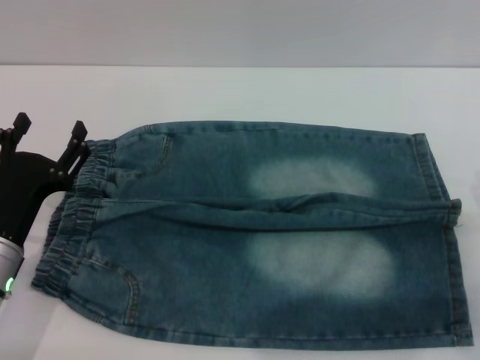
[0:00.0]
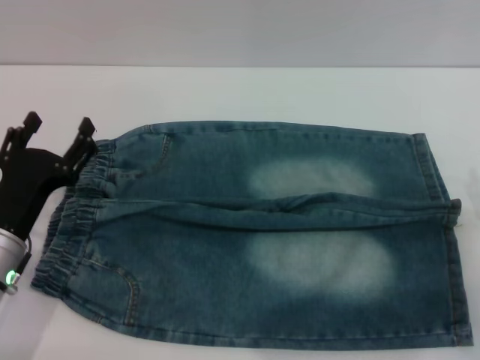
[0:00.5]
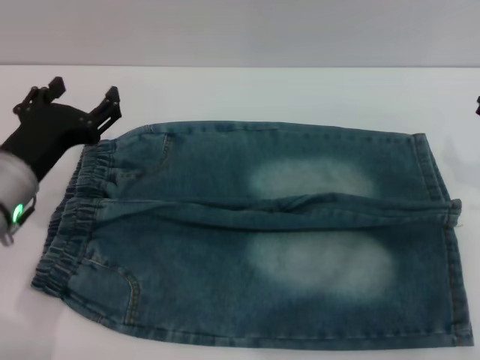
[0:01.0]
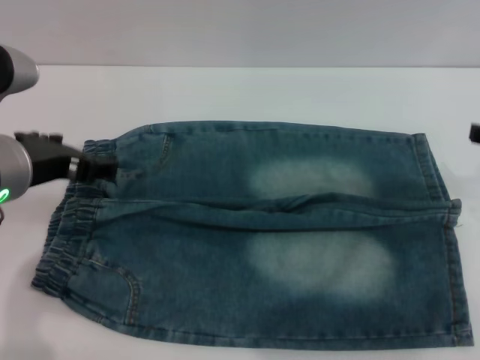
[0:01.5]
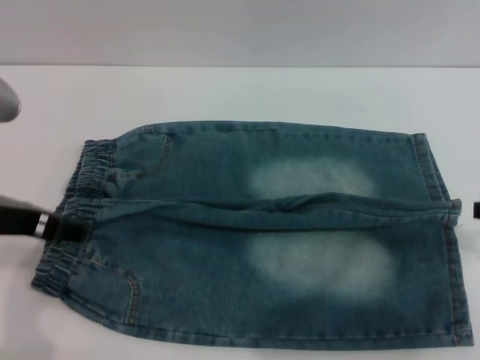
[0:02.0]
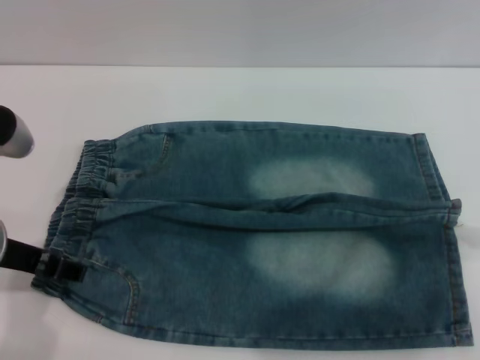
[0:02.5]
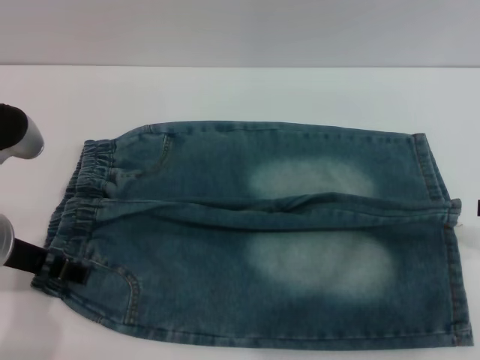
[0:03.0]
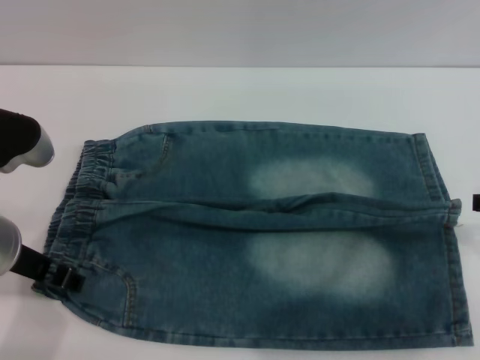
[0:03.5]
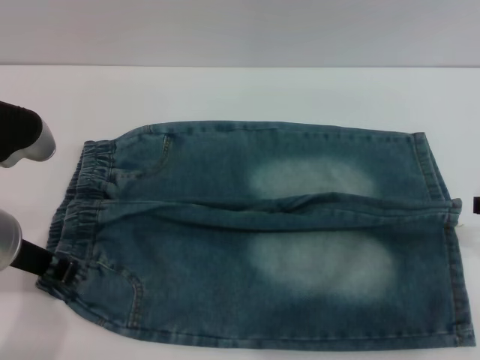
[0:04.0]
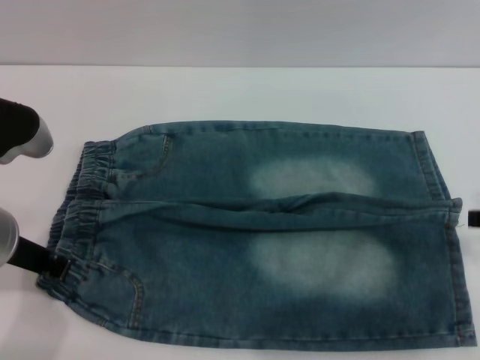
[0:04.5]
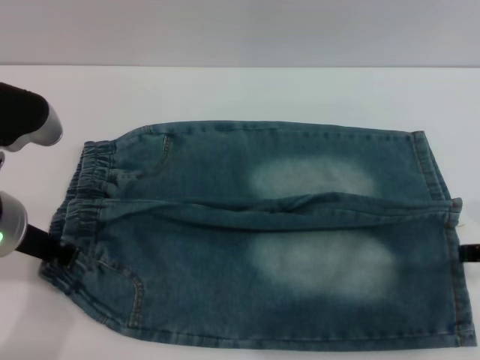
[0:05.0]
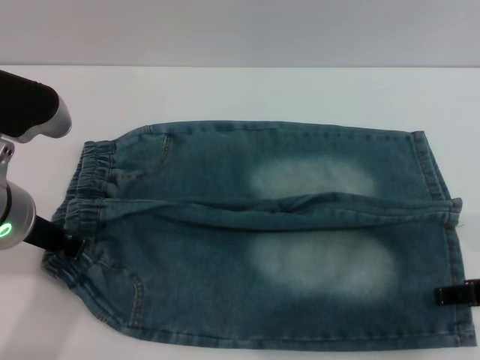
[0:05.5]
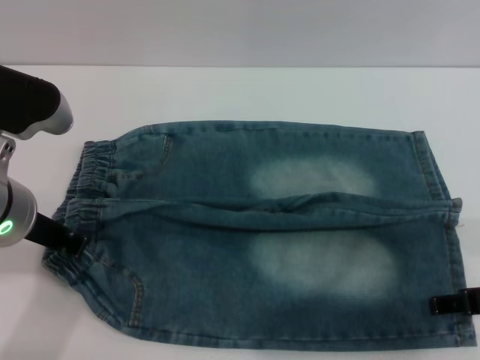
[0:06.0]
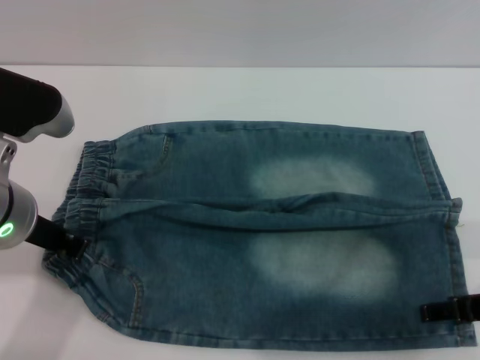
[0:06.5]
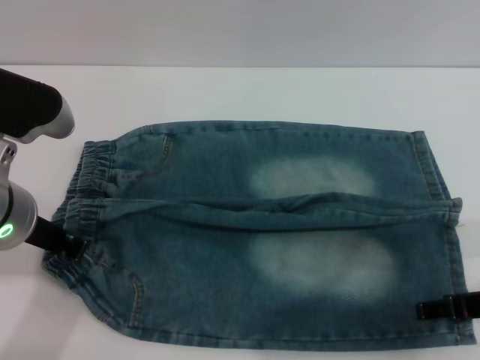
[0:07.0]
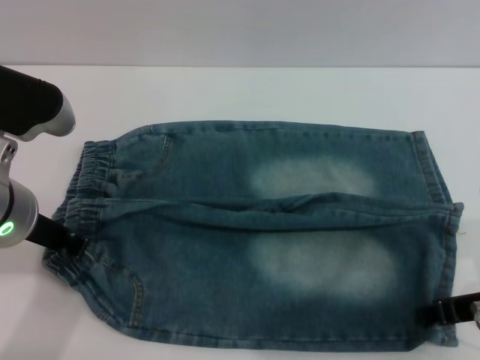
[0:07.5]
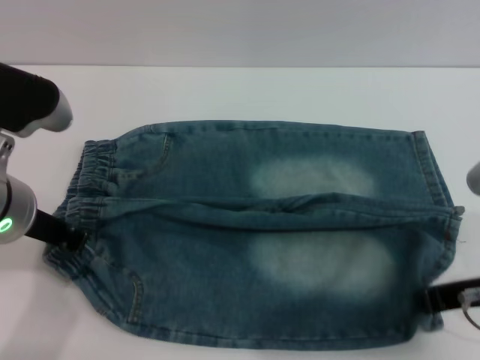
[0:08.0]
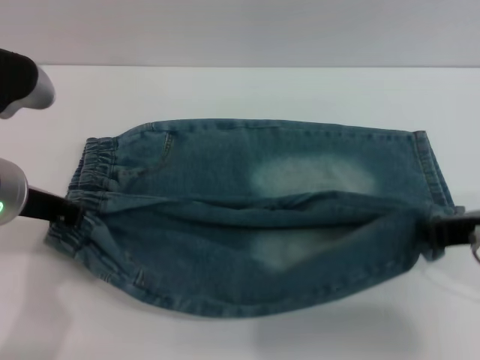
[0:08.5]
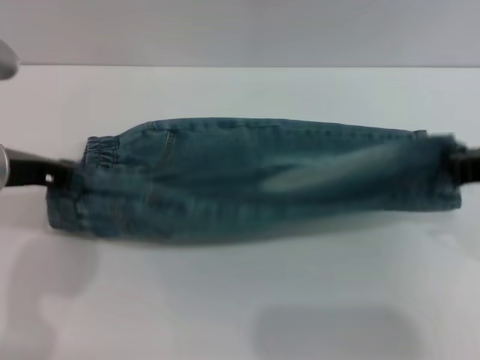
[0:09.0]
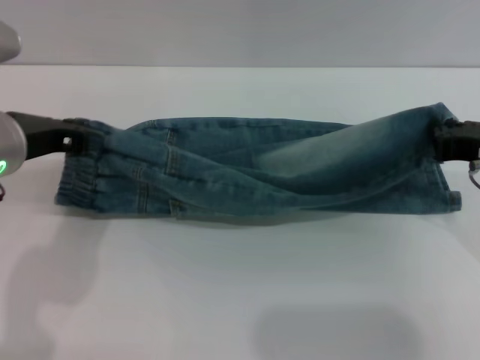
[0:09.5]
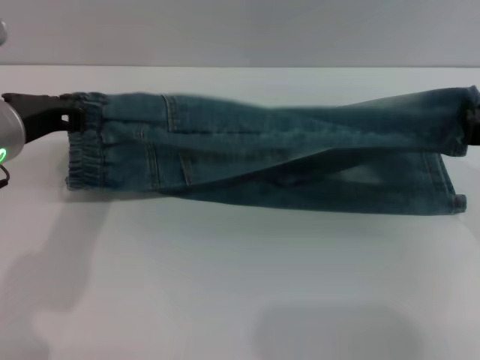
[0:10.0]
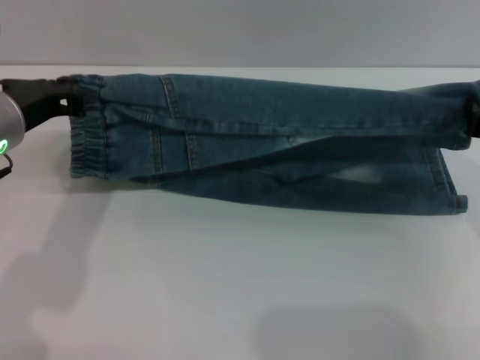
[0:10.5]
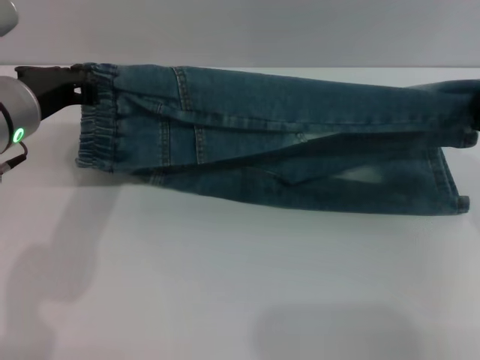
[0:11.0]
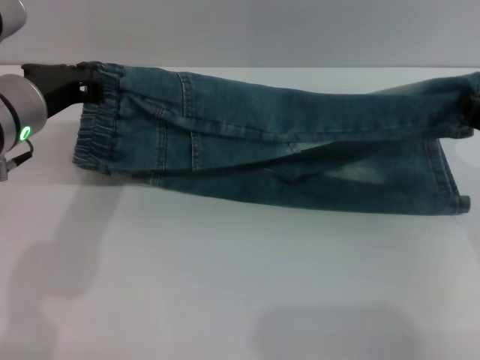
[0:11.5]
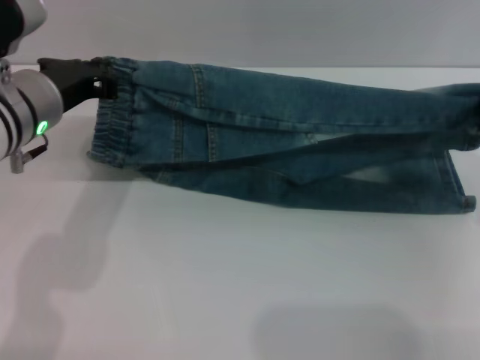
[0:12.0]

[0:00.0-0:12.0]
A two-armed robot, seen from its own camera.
0:00.0 to 0:02.0: Both grippers move upward, about 15 cm.
0:02.0 to 0:04.0: The left gripper closes its fingers.
0:04.0 to 0:06.0: The right gripper shifts by about 5 cm, while the left gripper closes its fingers.
0:06.0 to 0:08.0: The right gripper closes up.
0:08.0 to 0:10.0: The right gripper ends up approximately 5 cm from where it was.
0:10.0 to 0:12.0: The grippers move only a little.

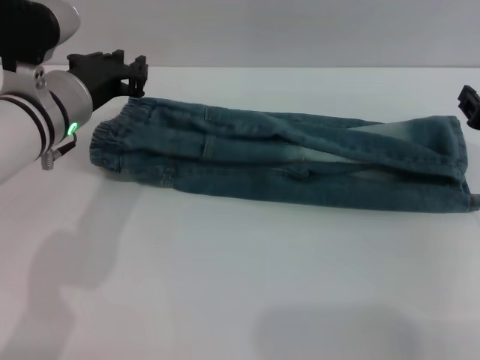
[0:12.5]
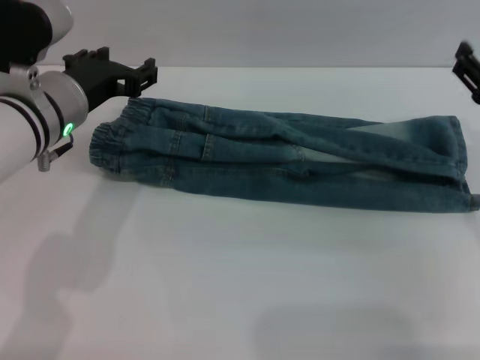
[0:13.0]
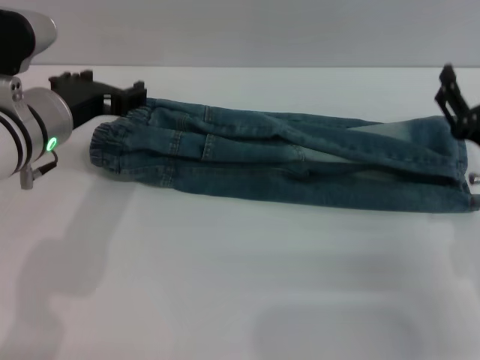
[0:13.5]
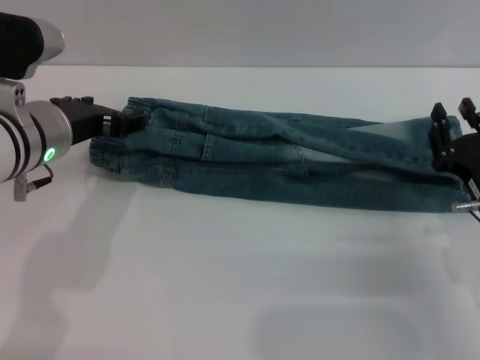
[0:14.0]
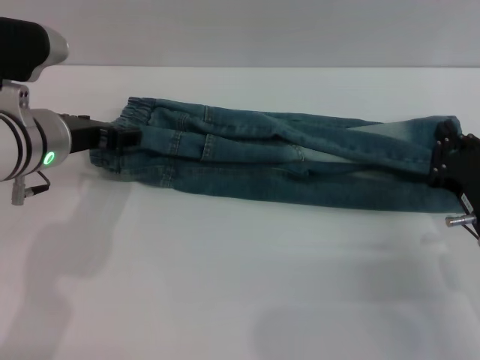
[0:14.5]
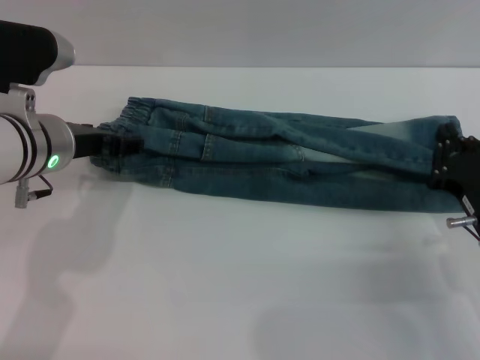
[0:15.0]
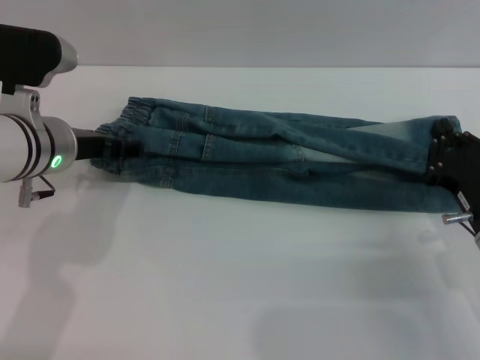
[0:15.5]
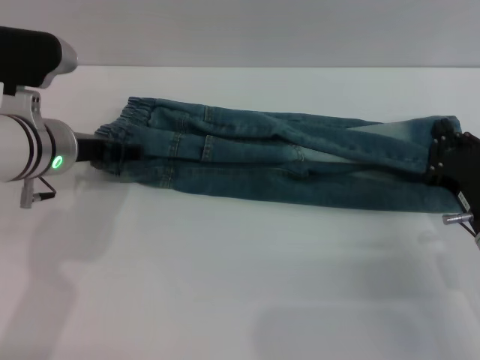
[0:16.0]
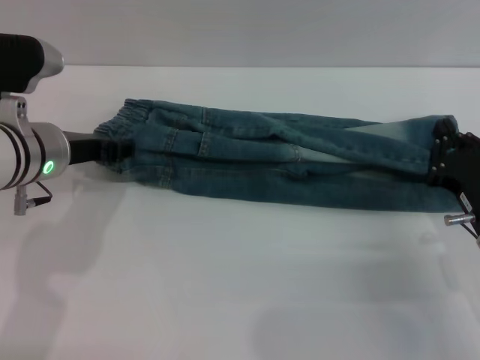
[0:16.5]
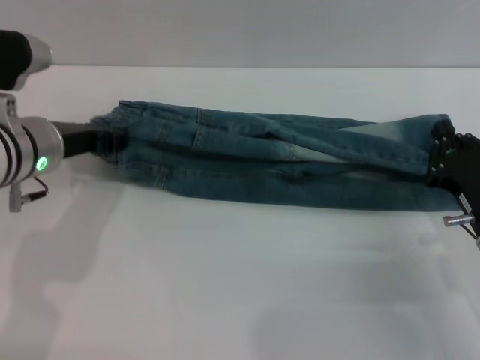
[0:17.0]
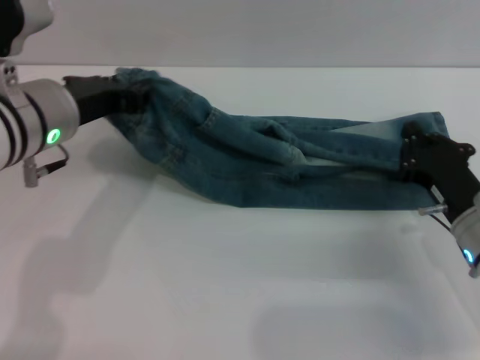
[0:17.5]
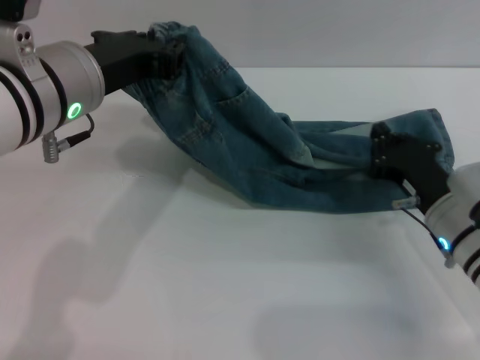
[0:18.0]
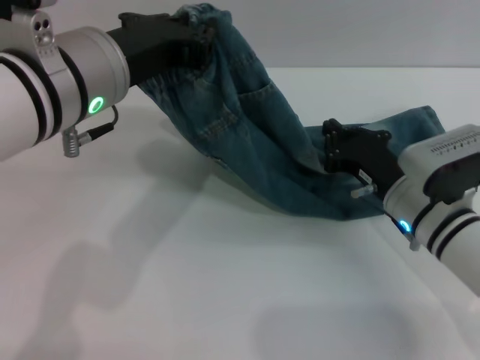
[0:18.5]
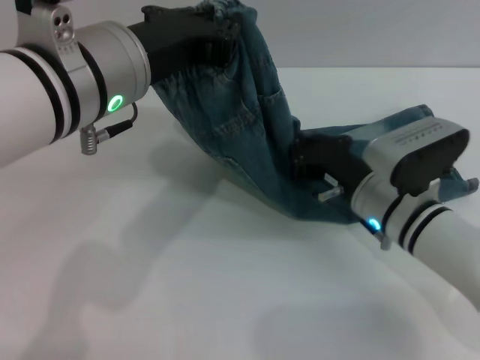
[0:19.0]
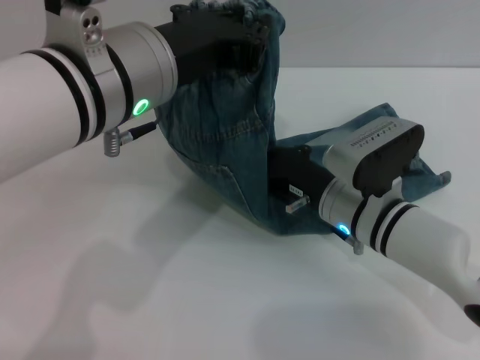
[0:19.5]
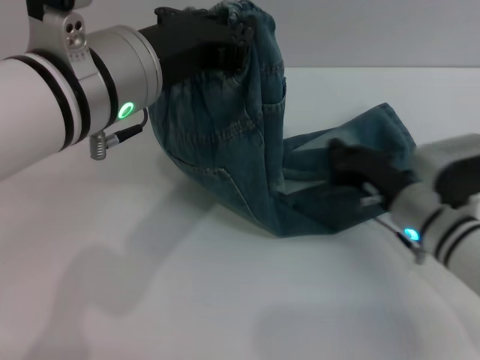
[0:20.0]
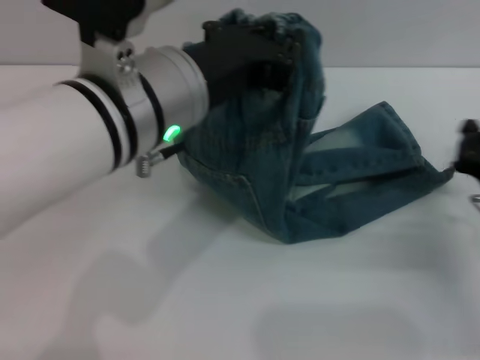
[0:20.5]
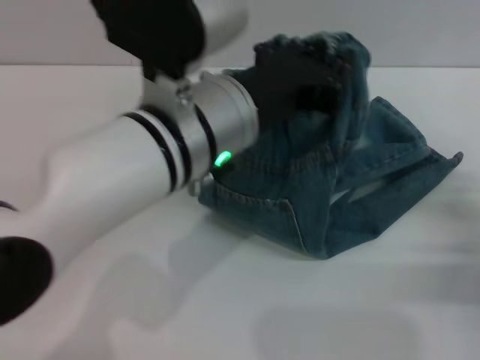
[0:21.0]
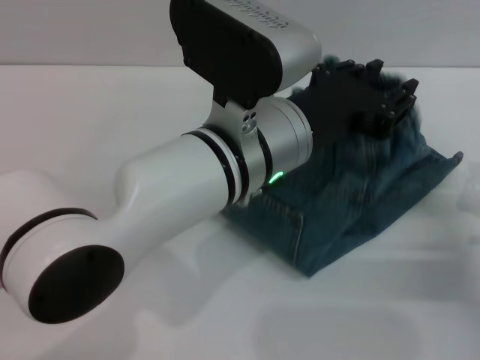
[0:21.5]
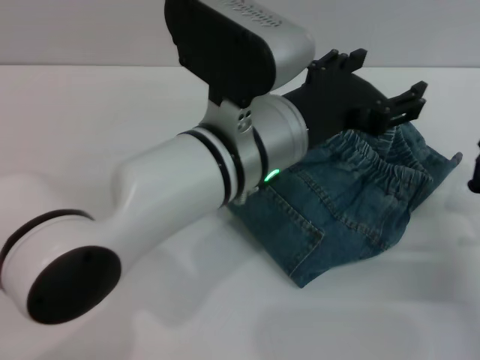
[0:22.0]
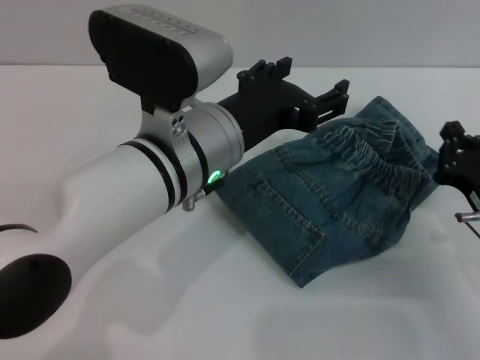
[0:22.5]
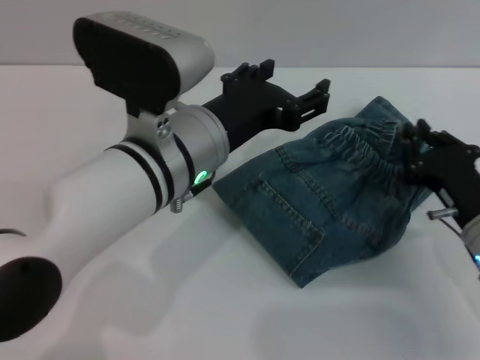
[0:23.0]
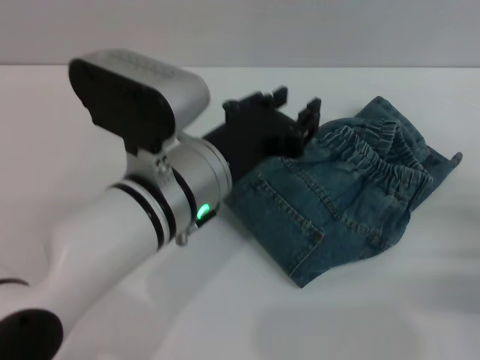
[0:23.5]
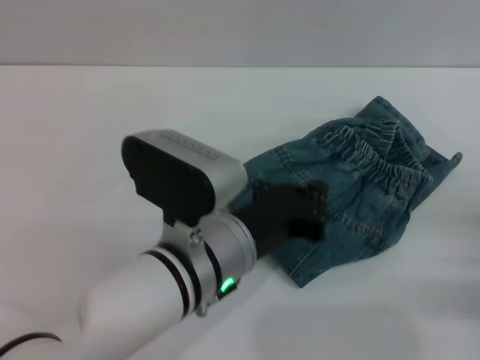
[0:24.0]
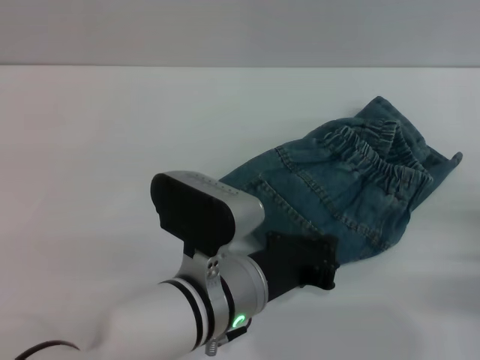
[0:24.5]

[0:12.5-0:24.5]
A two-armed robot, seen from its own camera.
Step, 0:13.5 to 0:22.0: Fold the pants from left to right with the left gripper.
0:12.5 to 0:14.5: The right gripper heads downward, covering some 10 cm, and opens and closes again; the left gripper opens up.
0:14.5 to 0:16.5: The grippers move only a little.
0:16.5 to 0:18.5: The right gripper moves forward and to the left, some 10 cm. The left gripper moves upward and to the right, roughly 15 cm, and closes its fingers.
0:18.5 to 0:20.5: The left gripper moves about 5 cm. Meanwhile the right gripper shifts about 10 cm to the right.
0:20.5 to 0:22.5: The left gripper heads downward, covering some 5 cm, and opens its fingers.
0:22.5 to 0:24.5: The left gripper moves downward and backward, about 10 cm, and closes up. Meanwhile the right gripper travels to the right by roughly 5 cm.

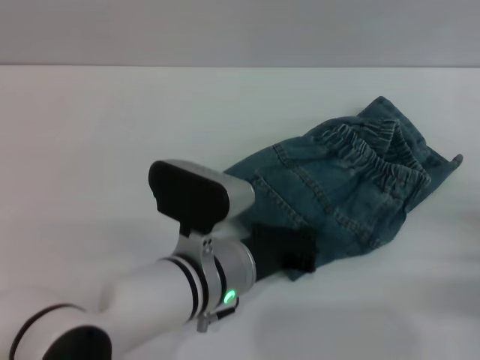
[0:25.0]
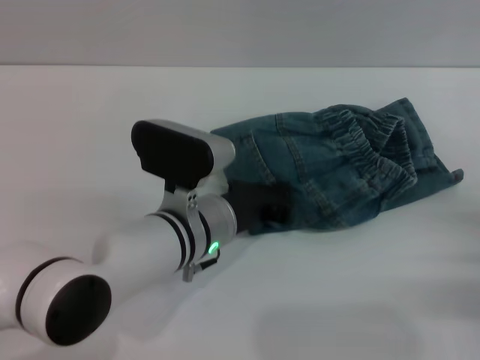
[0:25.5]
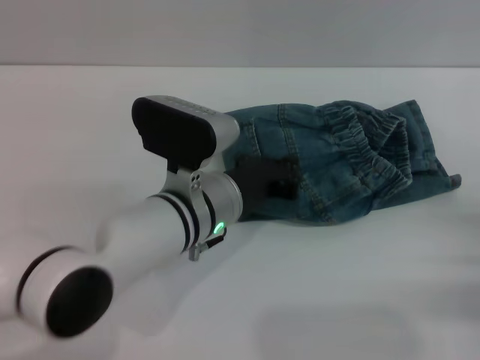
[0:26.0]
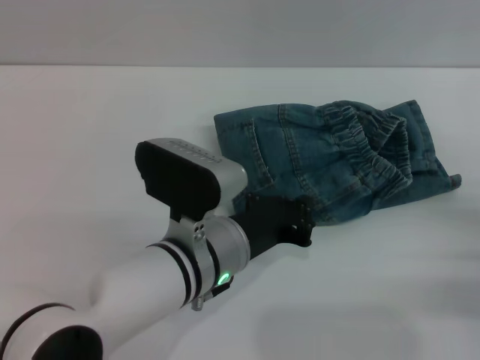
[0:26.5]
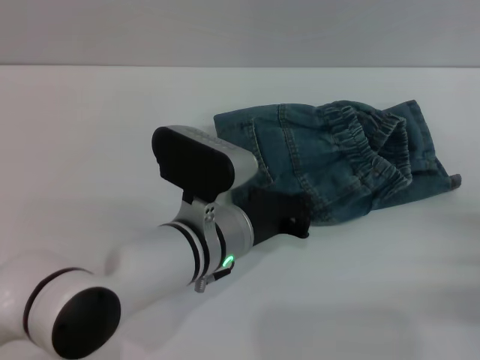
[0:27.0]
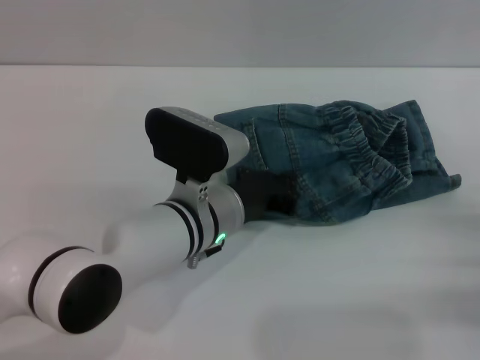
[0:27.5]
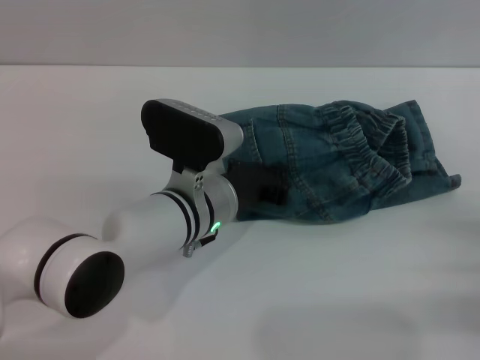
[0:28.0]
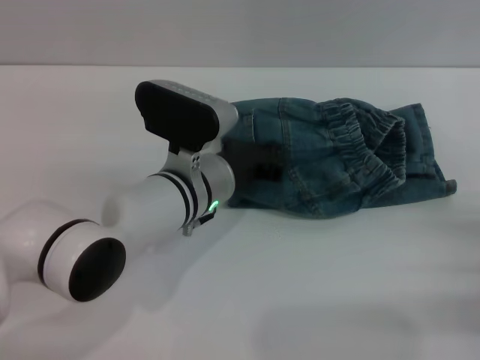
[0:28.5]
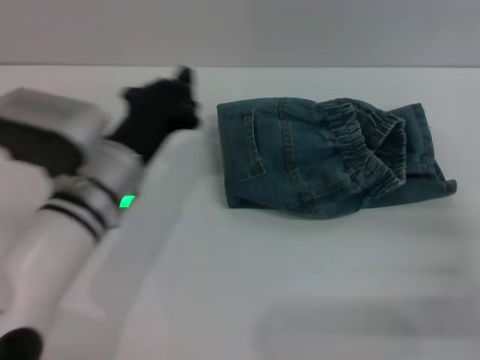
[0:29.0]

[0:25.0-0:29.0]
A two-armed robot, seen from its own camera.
Step, 0:25.0 to 0:29.0: Place the folded trousers onto the center area with the left grippers.
0:27.0 to 0:29.0: The left gripper moves to the left, approximately 10 cm.
